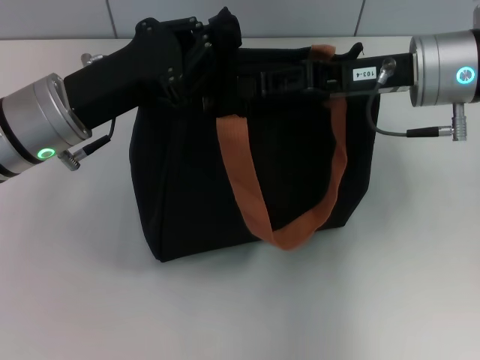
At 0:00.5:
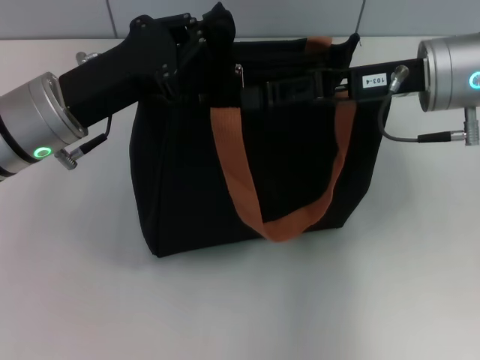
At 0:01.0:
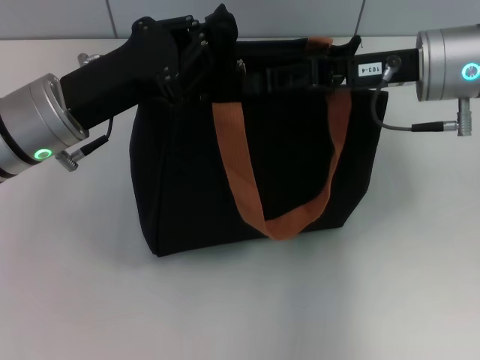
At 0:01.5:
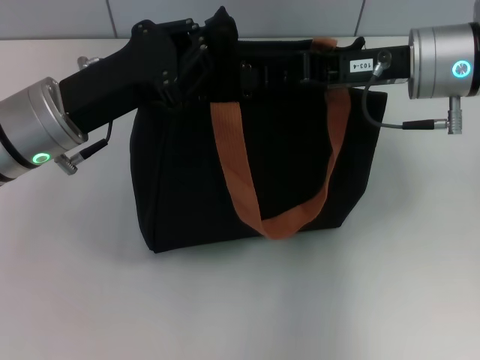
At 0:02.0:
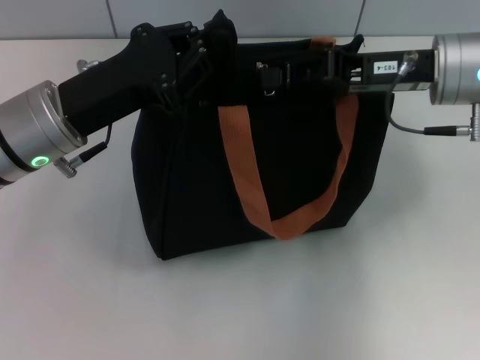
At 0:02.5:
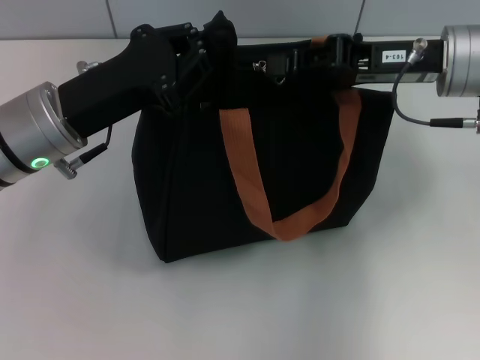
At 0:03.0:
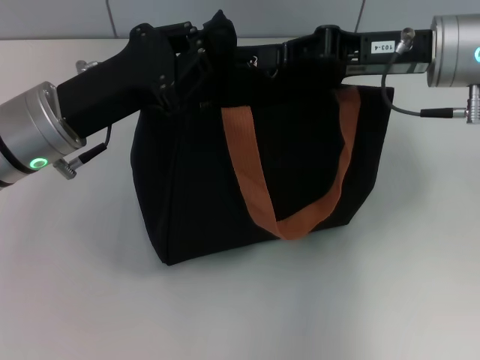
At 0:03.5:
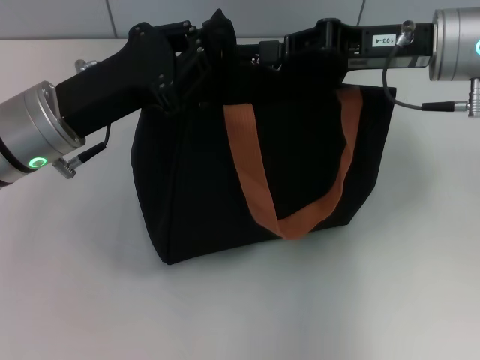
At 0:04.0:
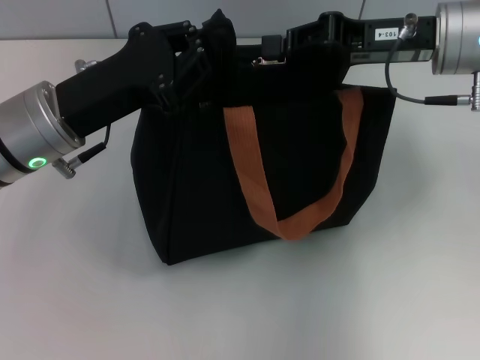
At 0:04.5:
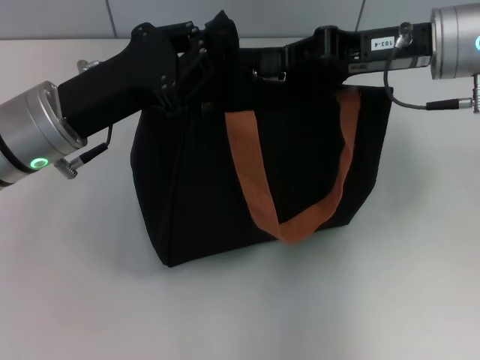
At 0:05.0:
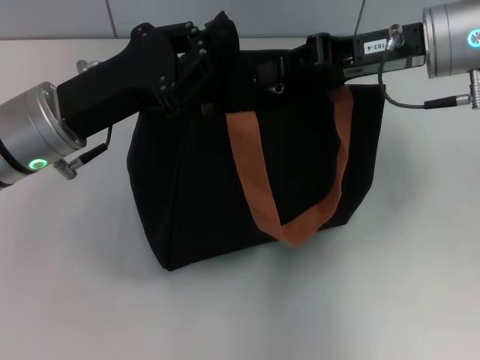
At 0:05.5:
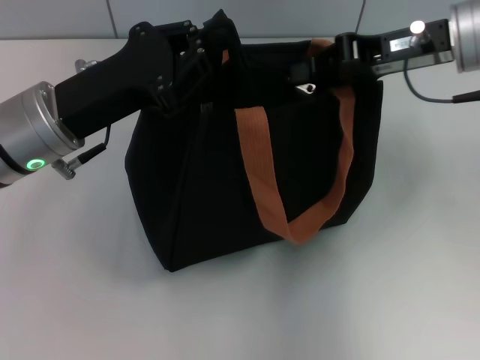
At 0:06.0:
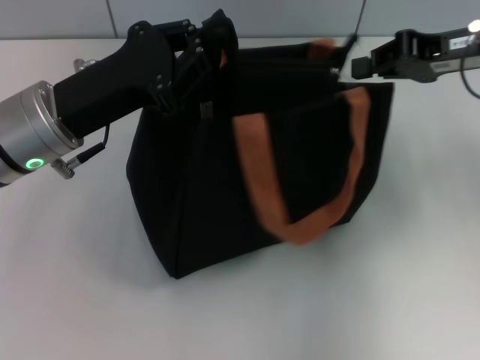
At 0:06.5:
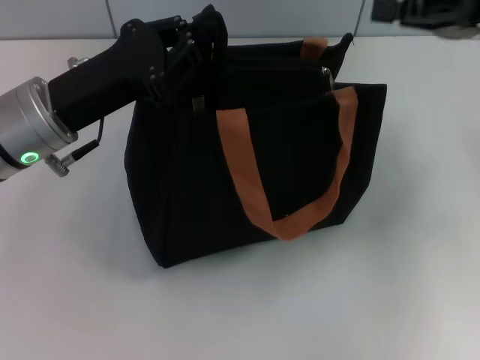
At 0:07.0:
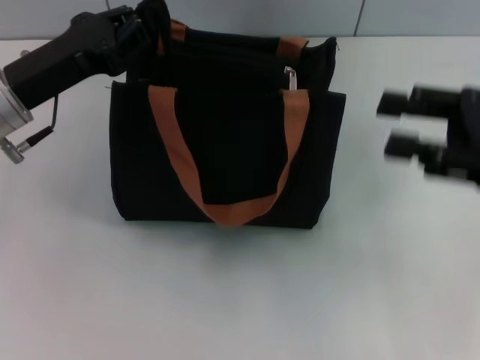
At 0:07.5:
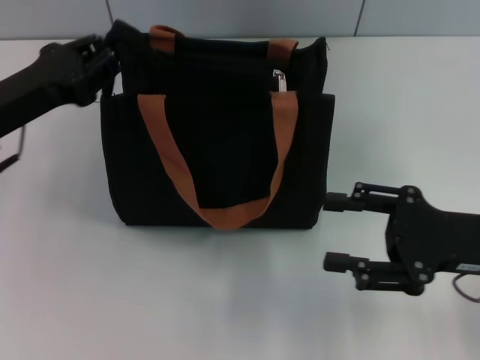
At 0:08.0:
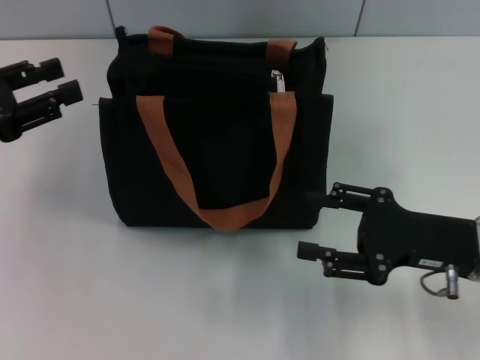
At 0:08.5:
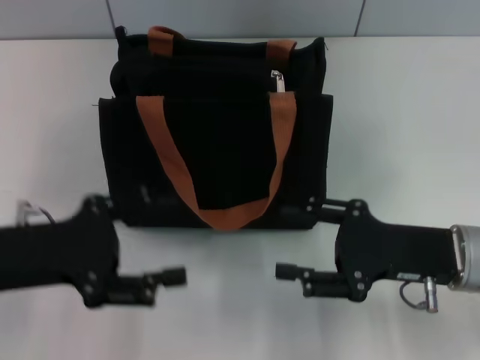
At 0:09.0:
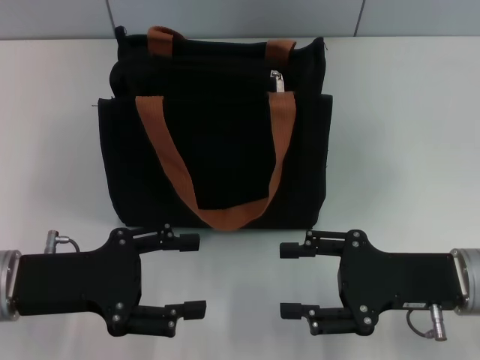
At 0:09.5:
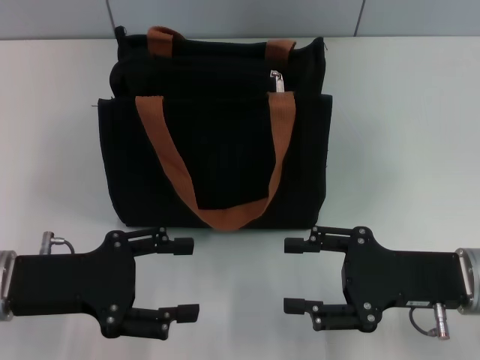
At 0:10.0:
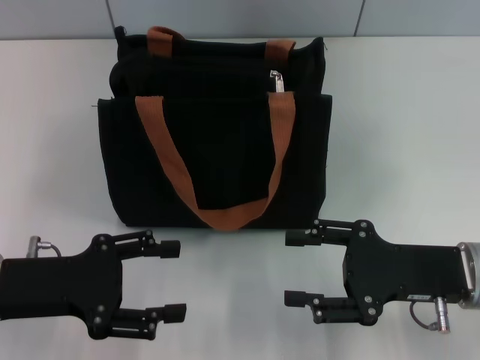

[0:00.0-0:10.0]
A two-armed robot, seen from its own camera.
Step, 0:00.0 to 0:06.0: Pull up the zipper with your right hand.
Step, 0:06.5 to 0:07.5: Grab the zipper with your left hand.
0:00.0 to 0:04.0: The grippers move only a little.
0:04.0 to 0:06.0: The right gripper shifts about 5 cm to the right.
0:06.0 to 0:08.0: The right gripper travels downward and backward by roughly 20 cm, and opens its fingers; the left gripper goes approximately 15 cm to the left, and opens.
0:08.0 to 0:10.0: The left gripper travels to the right, downward and backward by roughly 10 cm, and opens.
